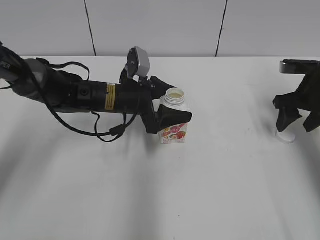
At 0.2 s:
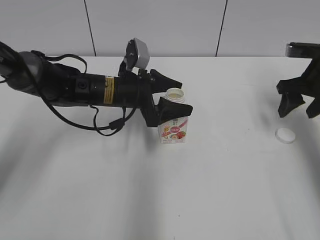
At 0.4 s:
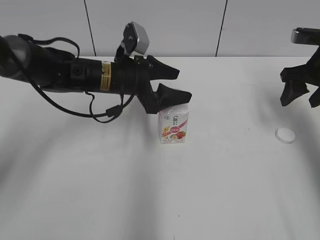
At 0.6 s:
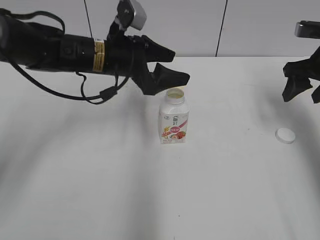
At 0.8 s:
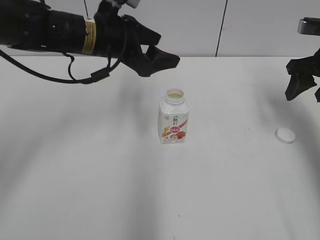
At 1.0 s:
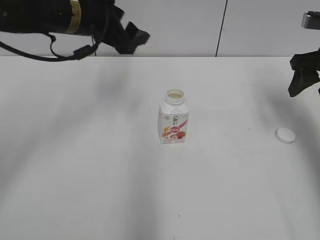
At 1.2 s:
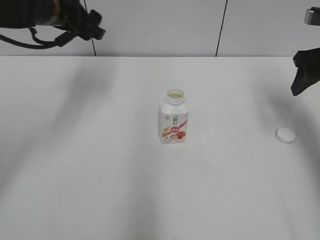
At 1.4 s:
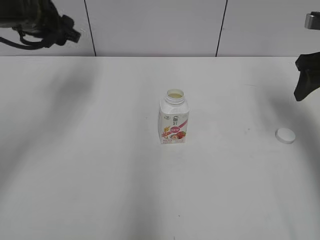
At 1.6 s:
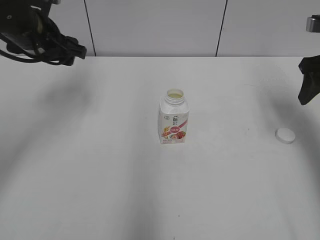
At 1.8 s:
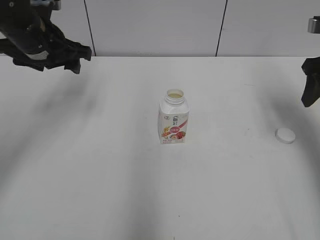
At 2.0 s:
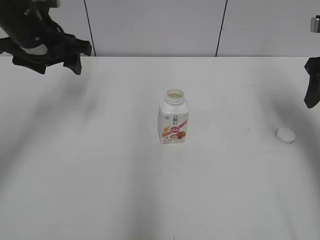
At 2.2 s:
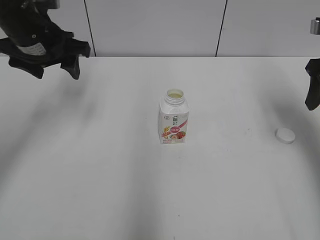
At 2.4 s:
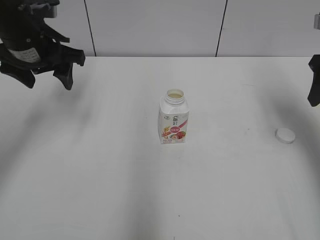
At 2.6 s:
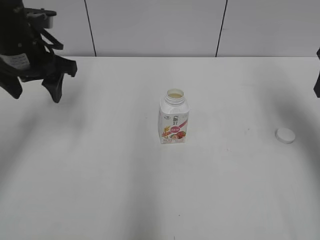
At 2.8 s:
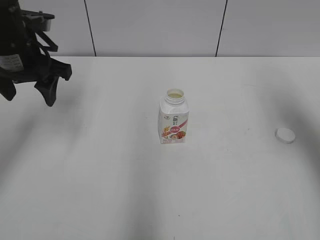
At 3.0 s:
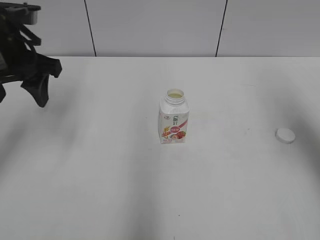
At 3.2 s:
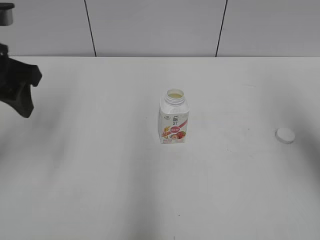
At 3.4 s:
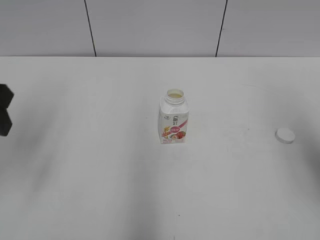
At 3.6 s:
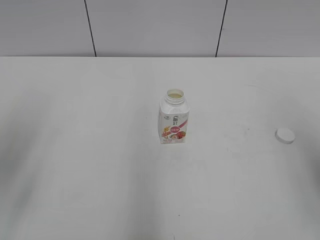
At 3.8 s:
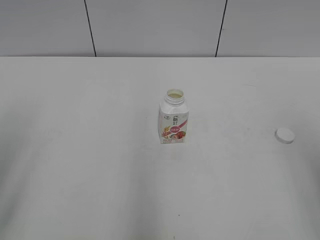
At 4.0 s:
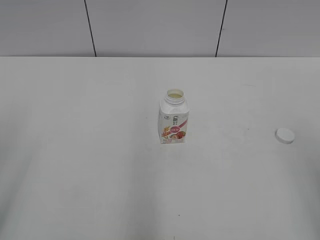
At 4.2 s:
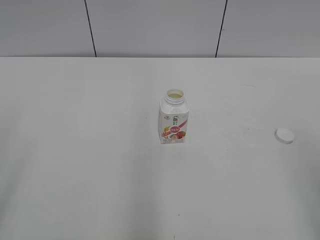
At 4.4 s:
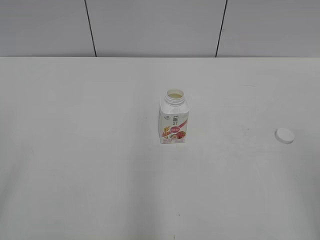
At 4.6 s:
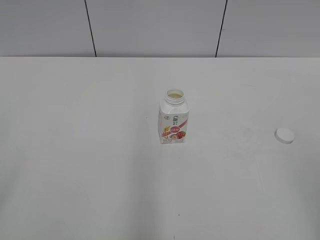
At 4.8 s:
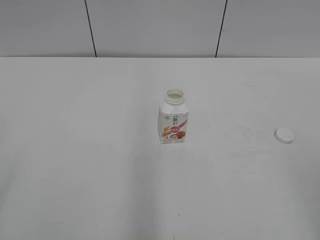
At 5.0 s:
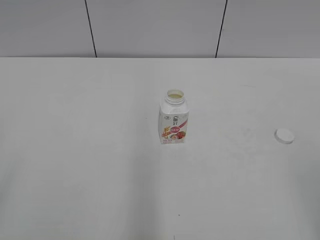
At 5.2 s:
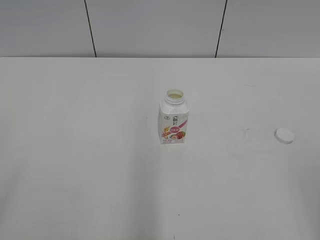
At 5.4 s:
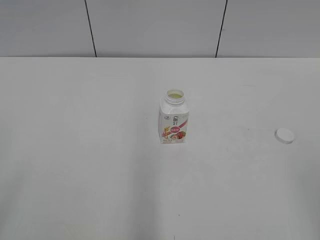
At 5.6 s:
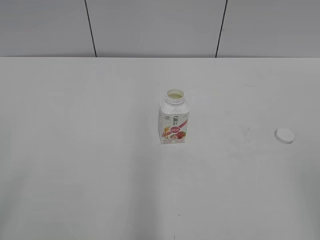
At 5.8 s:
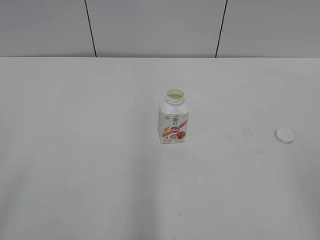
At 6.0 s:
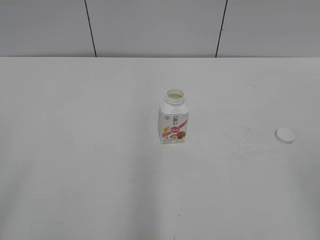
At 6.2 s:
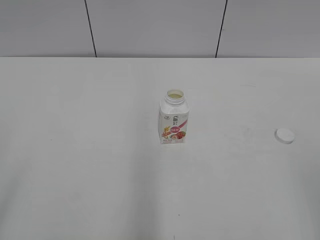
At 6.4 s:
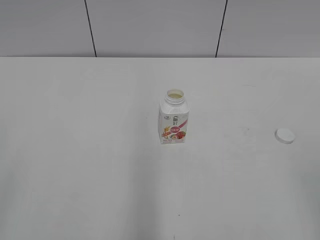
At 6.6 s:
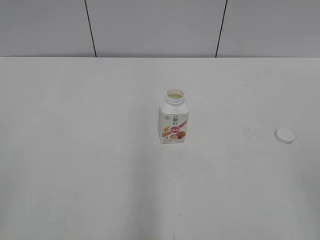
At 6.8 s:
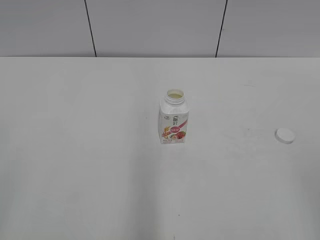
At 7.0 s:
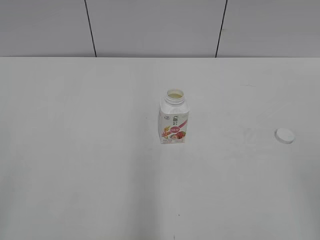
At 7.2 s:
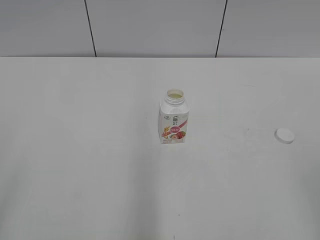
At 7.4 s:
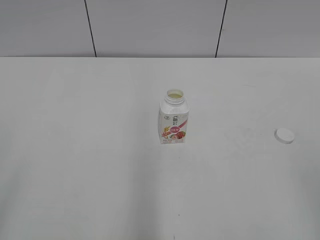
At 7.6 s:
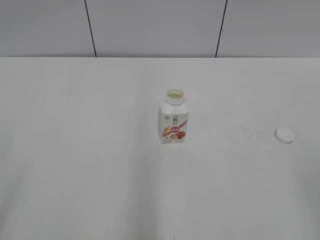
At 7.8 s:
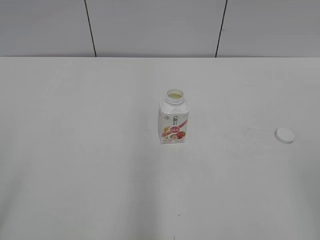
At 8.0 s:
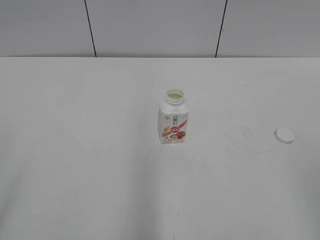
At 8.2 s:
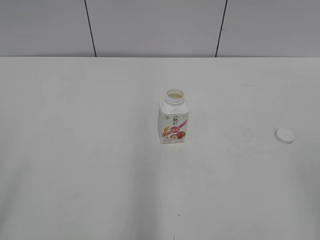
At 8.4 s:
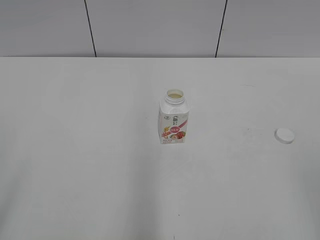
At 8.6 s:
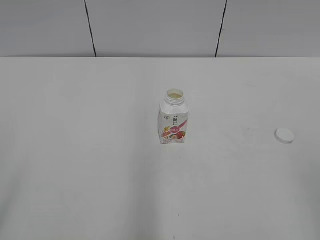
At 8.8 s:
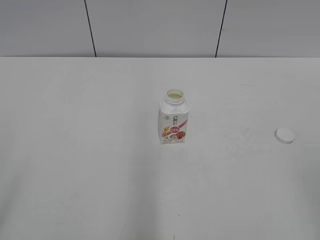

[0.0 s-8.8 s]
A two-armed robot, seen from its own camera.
0.0 to 1.4 s: The right gripper heads upward, covering some 10 cm; the left gripper goes roughly 20 cm upward and to the left.
1.4 to 3.0 s: The left gripper goes roughly 10 cm backward, while the right gripper shifts about 10 cm backward and upward.
3.0 to 4.4 s: Both grippers move backward, approximately 25 cm.
7.4 to 8.8 s: Both grippers stay put.
